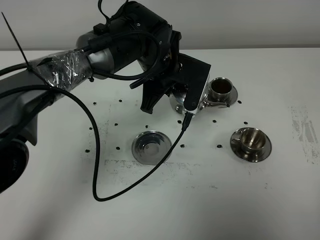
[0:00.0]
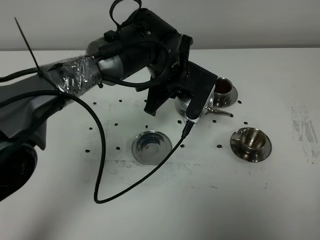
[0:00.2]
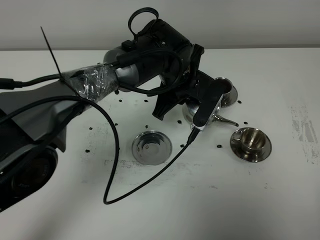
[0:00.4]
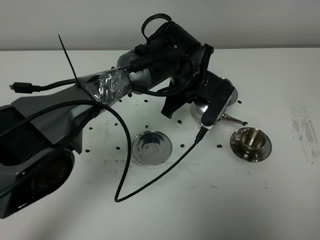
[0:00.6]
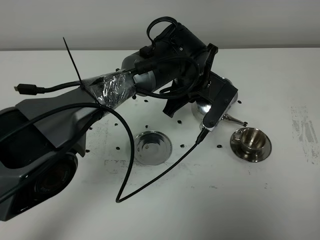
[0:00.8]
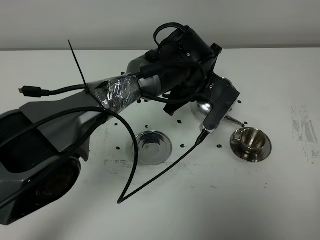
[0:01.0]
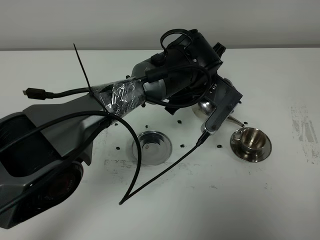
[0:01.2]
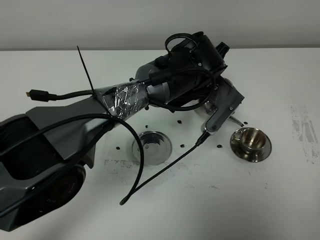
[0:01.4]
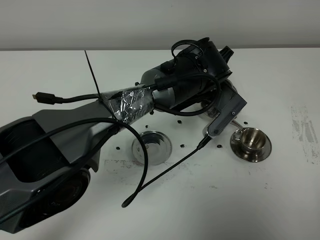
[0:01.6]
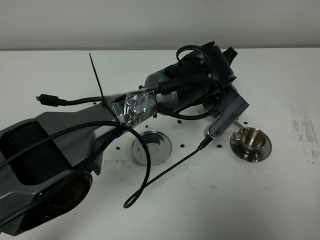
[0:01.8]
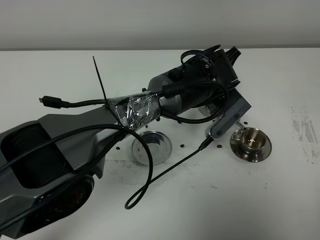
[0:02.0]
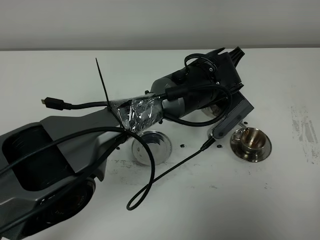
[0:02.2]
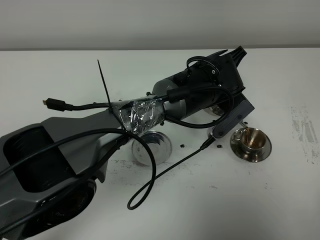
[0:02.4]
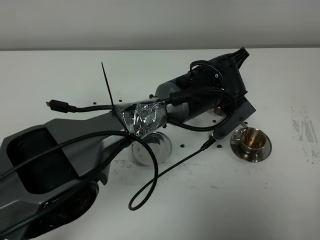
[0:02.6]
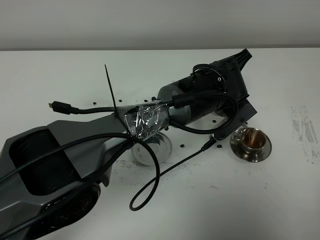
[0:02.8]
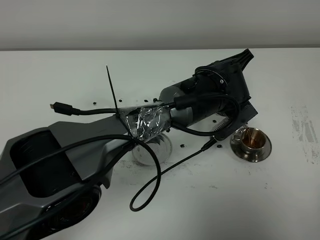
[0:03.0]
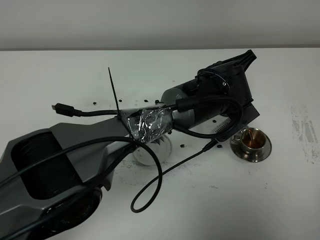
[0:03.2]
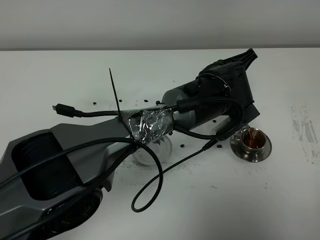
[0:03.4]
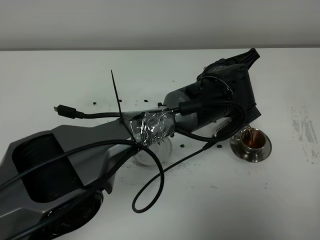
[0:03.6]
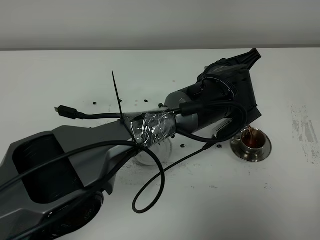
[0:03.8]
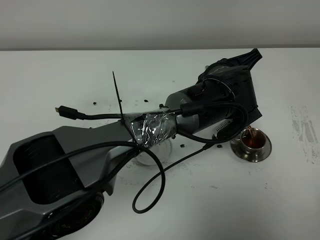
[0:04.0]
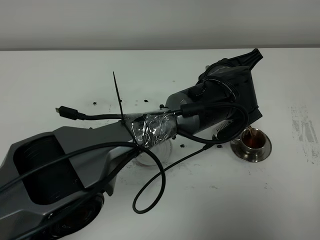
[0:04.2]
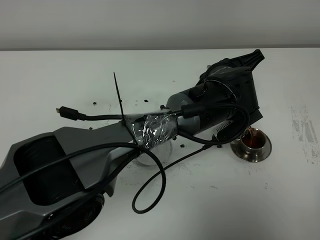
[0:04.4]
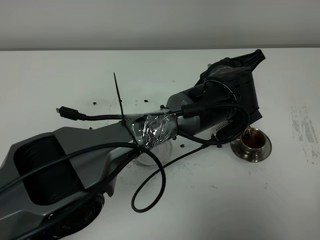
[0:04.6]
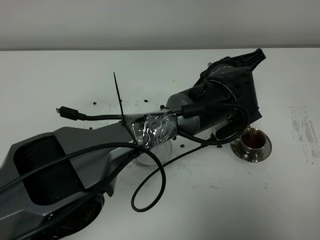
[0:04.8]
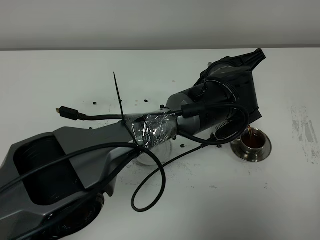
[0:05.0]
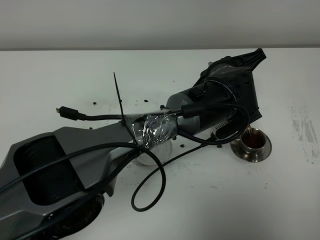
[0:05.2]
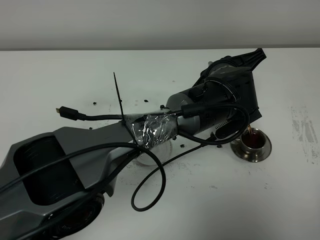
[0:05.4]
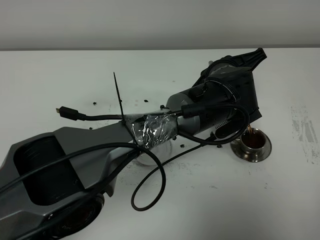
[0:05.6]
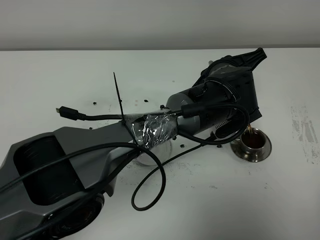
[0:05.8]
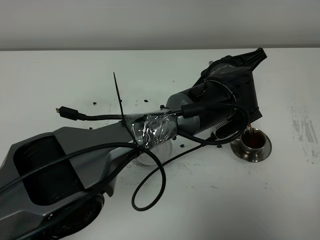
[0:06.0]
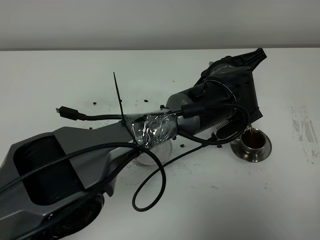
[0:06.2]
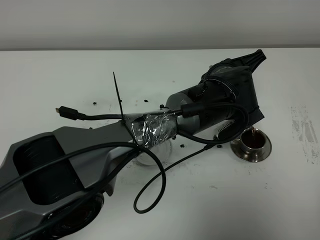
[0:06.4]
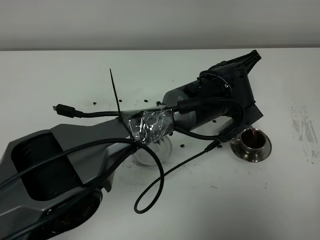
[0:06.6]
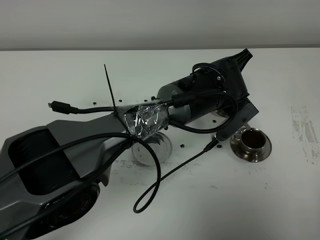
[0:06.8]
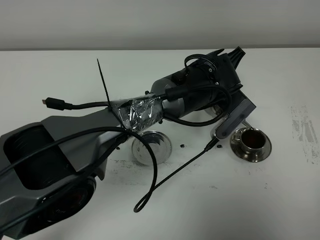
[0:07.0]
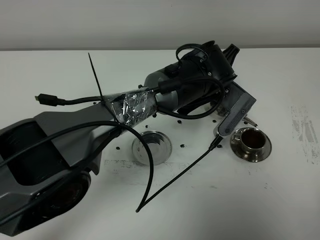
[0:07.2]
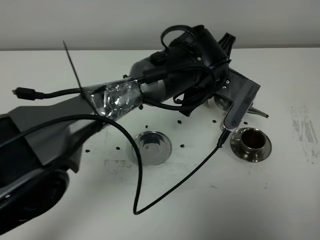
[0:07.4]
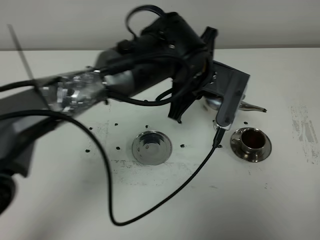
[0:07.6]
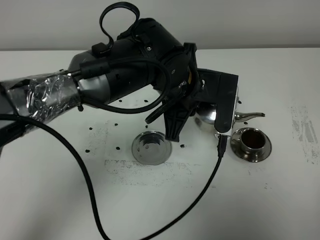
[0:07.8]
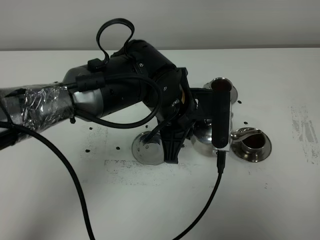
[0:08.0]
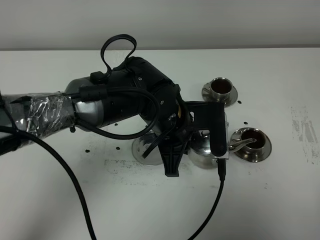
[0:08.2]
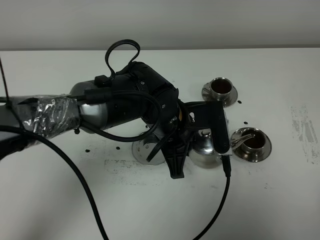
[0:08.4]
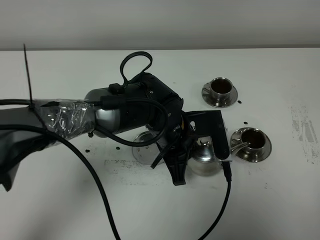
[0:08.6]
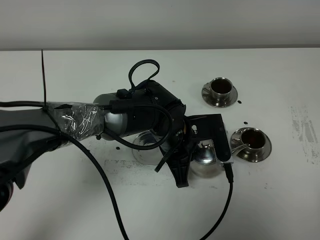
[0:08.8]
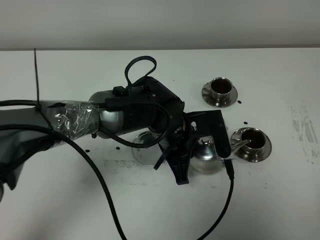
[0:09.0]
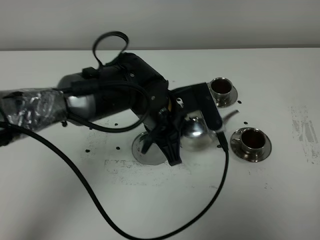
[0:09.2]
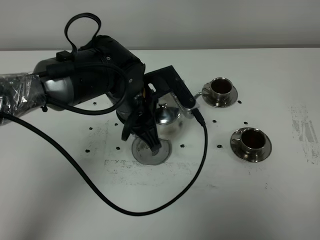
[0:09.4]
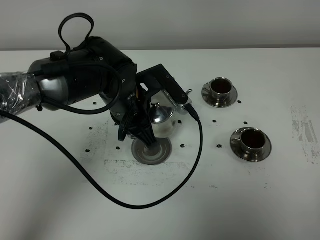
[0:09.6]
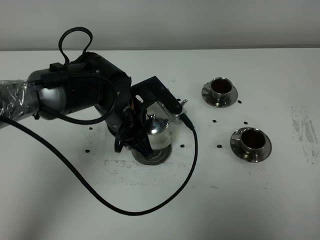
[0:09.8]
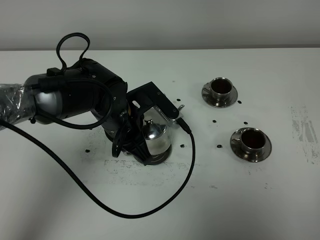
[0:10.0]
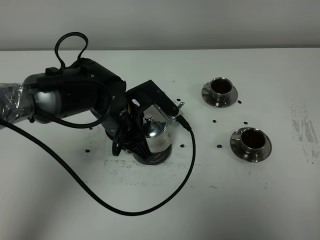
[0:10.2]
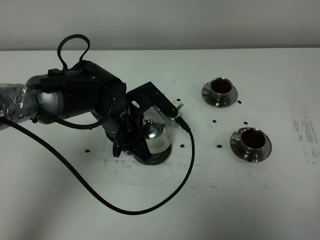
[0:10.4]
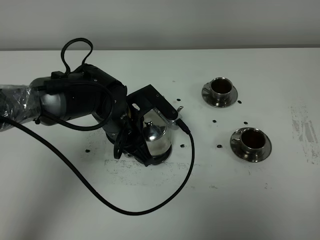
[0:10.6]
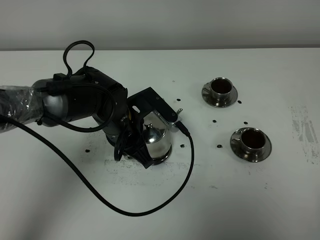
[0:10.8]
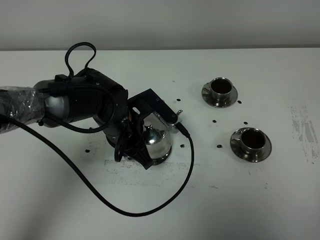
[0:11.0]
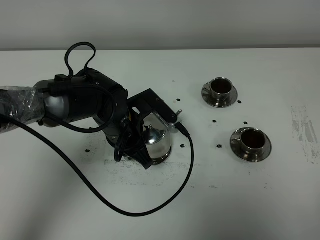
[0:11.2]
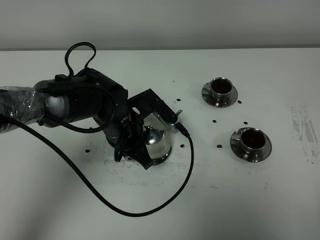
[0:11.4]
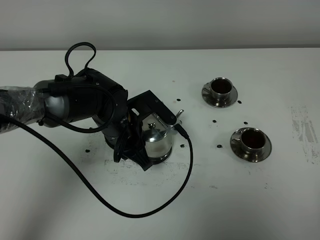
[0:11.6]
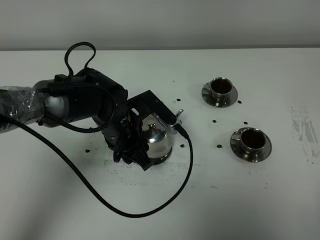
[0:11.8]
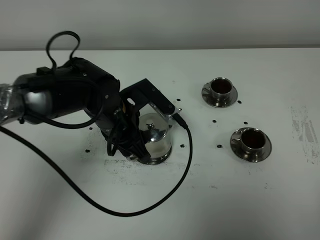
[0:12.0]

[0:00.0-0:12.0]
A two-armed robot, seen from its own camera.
Task of the whole recording: grasp the stainless steel teapot and pour the tea into the two stainless steel teacups one by one, put the stainless steel teapot back in its original place.
Step, 0:00.0 to 0:07.2: Pour tea into the teacup with the left gripper.
0:00.0 to 0:01.6: The left gripper heads to the right, covering approximately 10 cm.
0:03.0 to 0:04.4: There are only small adjustments of the grippers.
0:04.4 to 0:06.0: Both grippers stay put.
0:06.0 to 0:07.6: The left gripper heads to the left and upward, covering approximately 10 cm.
0:07.6 to 0:09.0: The left gripper heads downward, covering some 10 cm.
0:09.0 to 0:10.4: The left gripper is displaced to the left by approximately 10 cm.
0:10.4 to 0:12.0: The left gripper opens its fingers.

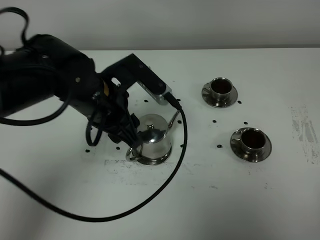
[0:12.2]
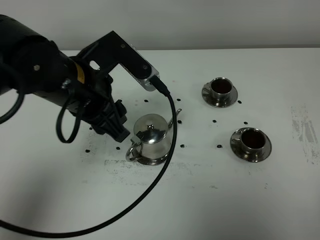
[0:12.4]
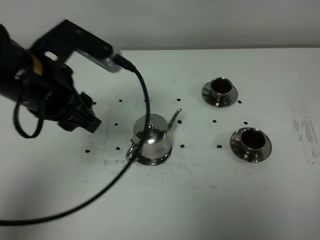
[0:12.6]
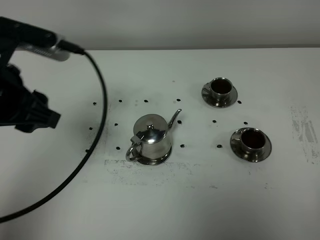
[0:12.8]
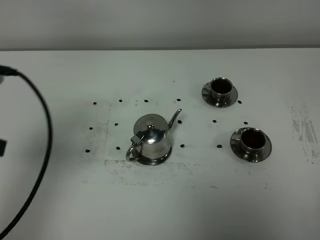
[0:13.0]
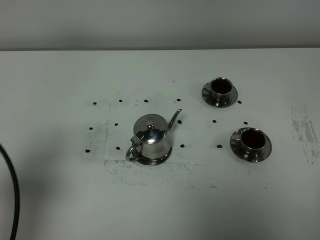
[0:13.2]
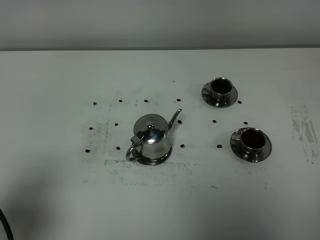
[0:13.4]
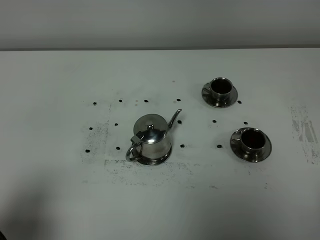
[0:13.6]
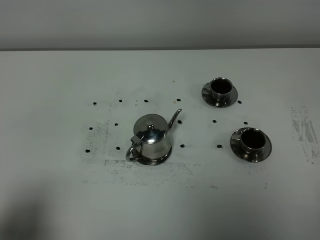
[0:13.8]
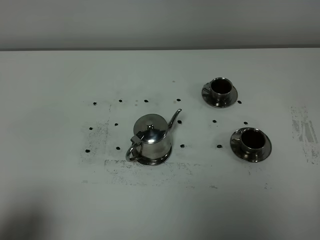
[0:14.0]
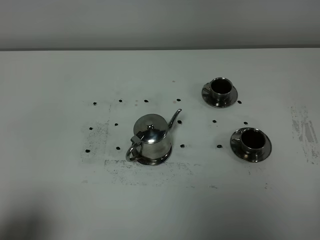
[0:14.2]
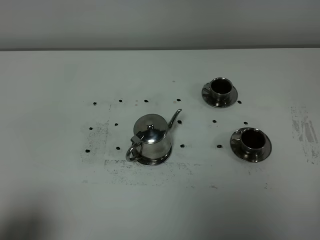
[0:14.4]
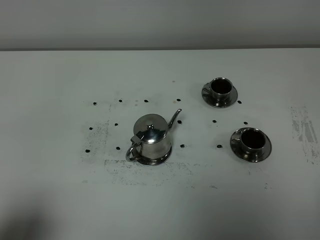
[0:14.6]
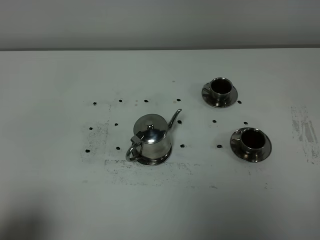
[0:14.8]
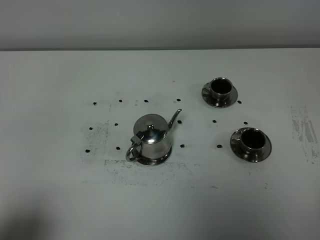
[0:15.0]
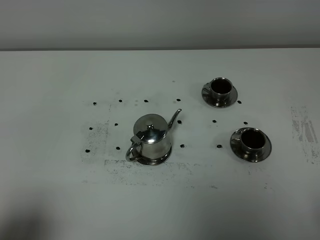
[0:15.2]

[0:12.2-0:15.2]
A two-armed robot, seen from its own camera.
Task of the whole recording: grasp the stainless steel teapot and pour the tea into the two stainless steel teacups one by one, put the stainless steel teapot back in its original place.
0:12.2 to 0:13.8: The left gripper moves backward and to the left, some 35 cm.

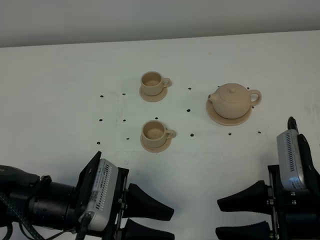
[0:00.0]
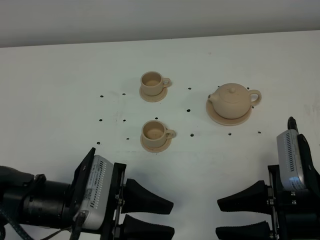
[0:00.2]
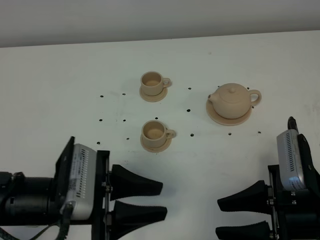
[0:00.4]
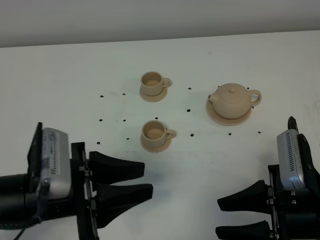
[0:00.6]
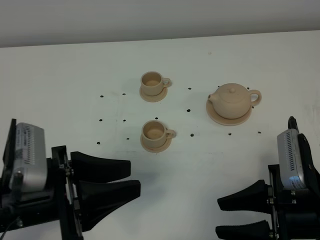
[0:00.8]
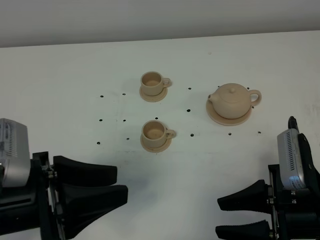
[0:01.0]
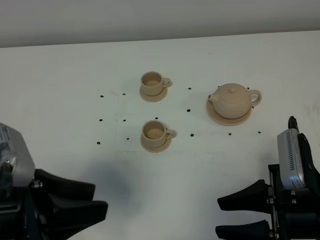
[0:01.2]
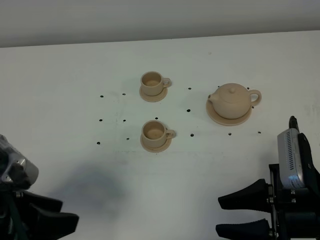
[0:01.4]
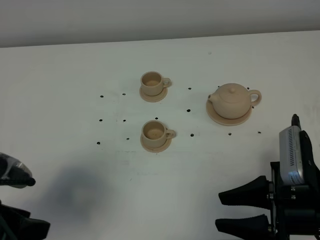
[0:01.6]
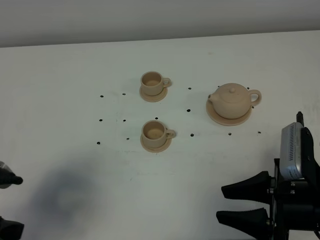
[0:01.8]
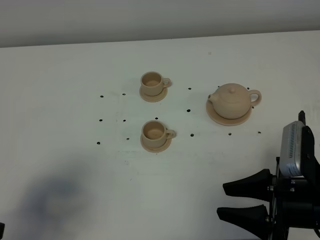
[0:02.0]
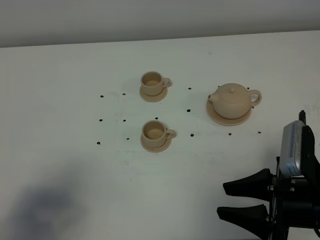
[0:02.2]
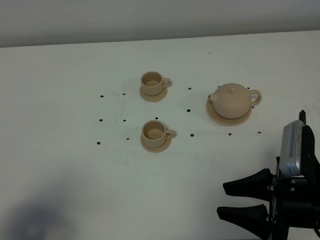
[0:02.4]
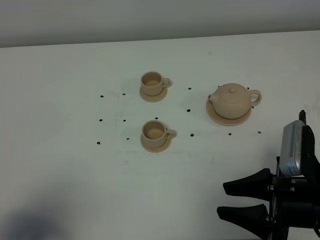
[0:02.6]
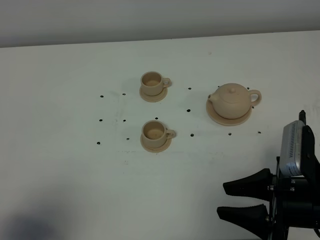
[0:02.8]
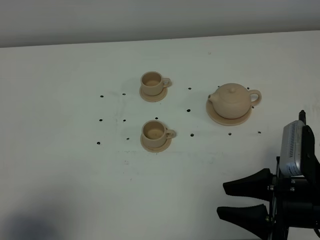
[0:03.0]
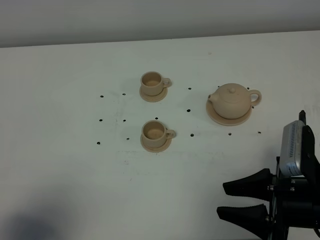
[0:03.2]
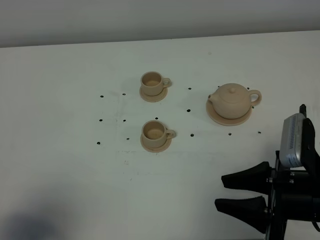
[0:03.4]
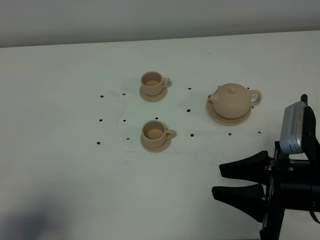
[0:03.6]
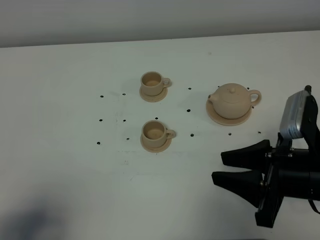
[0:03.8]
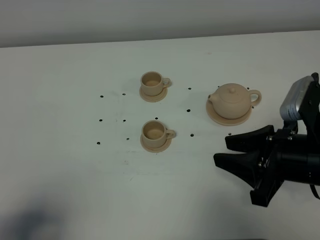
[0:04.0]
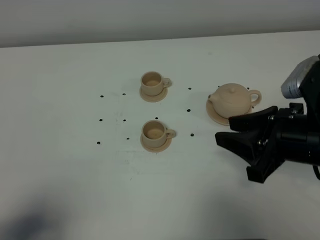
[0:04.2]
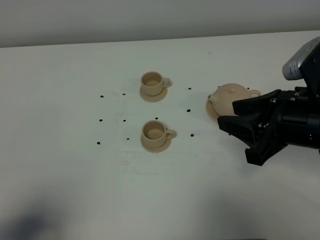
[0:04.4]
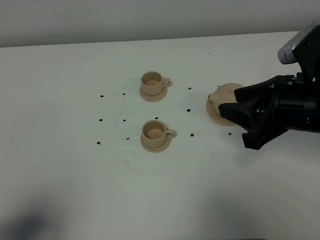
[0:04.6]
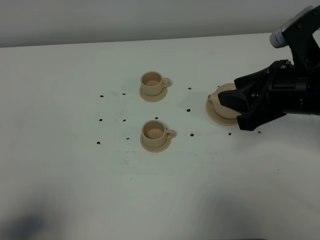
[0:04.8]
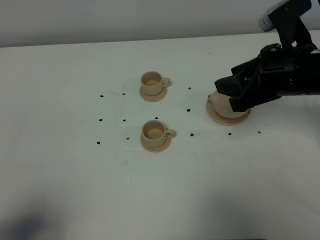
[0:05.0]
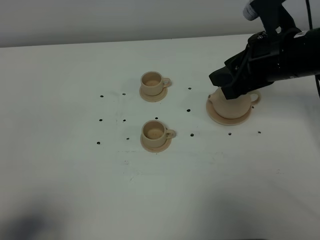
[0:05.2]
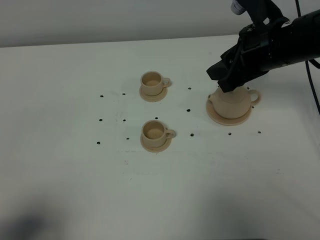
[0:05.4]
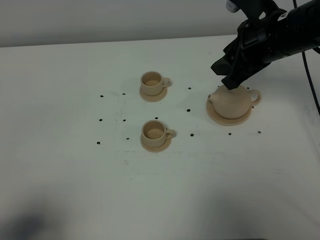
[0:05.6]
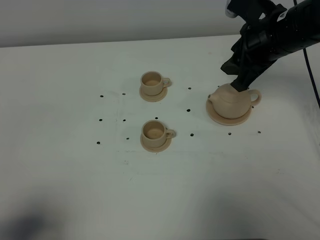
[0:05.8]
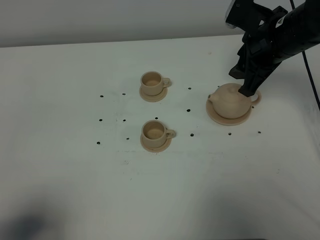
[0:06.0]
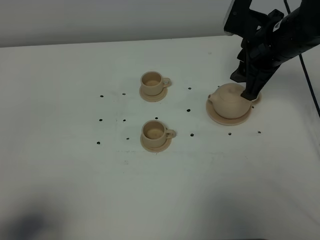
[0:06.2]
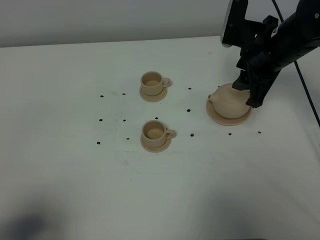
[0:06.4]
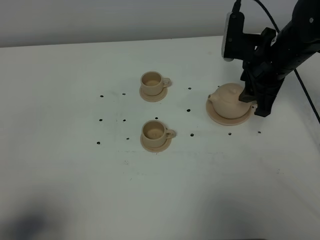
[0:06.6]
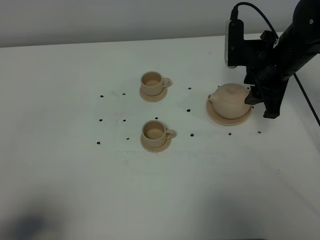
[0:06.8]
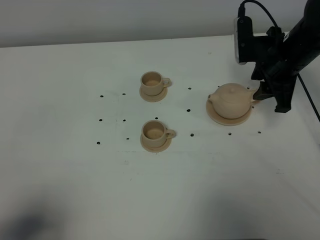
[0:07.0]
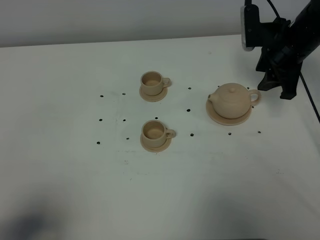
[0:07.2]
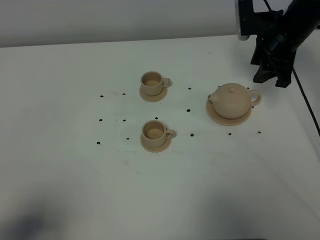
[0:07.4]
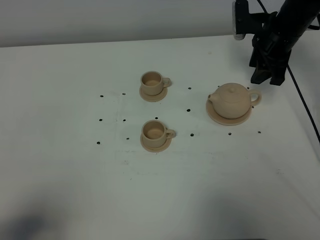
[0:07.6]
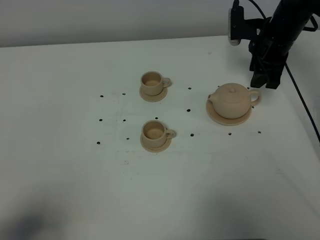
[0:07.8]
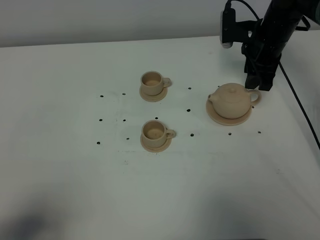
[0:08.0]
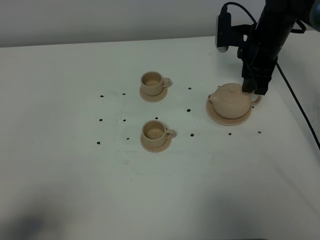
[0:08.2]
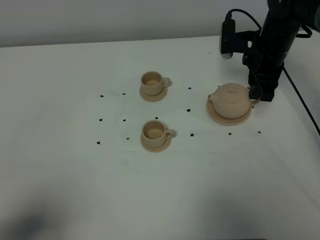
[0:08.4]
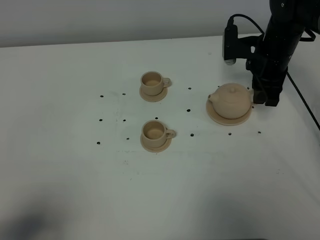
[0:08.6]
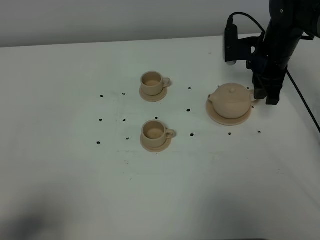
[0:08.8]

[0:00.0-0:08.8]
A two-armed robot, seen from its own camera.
Task of the whole recording: grasp the brown teapot and pour the tea into the two brown teacups one by one, put the brown teapot back in its original place.
0:00.0 to 0:01.4: The left gripper moves upward and to the left, roughly 15 cm.
0:01.4 to 0:03.0: The left gripper moves backward and to the left, about 10 cm.
0:03.0 to 0:04.4: The right gripper heads upward and forward, covering some 10 cm.
0:04.4 to 0:05.8: The right gripper shifts roughly 15 cm forward.
0:05.8 to 0:07.4: The right gripper is displaced forward by approximately 10 cm.
0:07.4 to 0:08.8: The grippers stay close to where they were, moving slightly.
